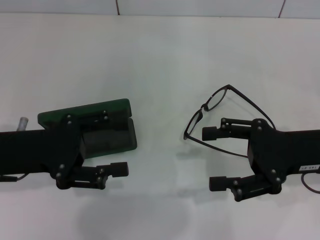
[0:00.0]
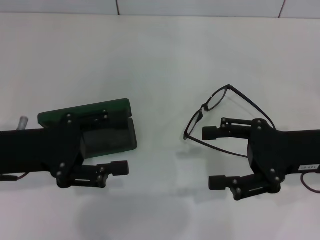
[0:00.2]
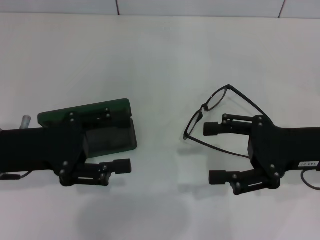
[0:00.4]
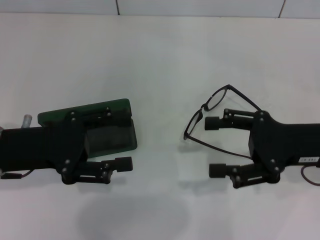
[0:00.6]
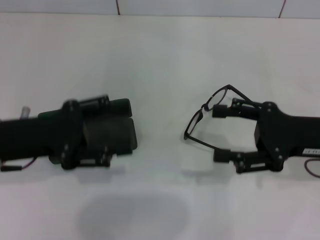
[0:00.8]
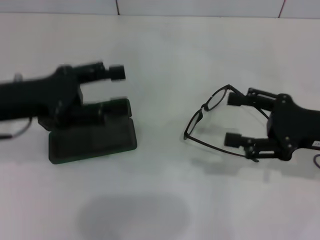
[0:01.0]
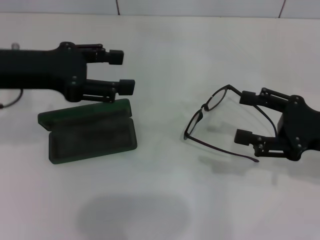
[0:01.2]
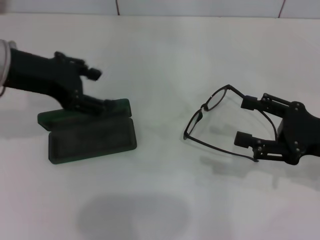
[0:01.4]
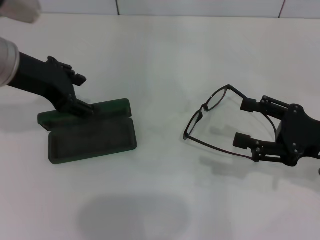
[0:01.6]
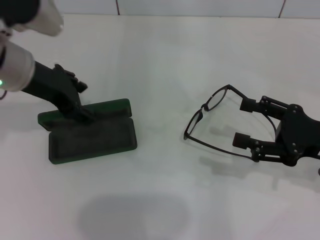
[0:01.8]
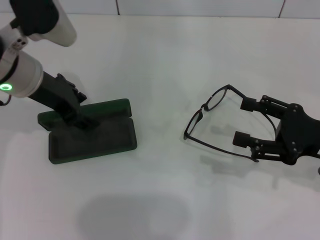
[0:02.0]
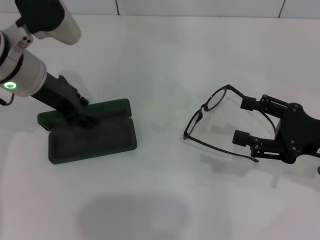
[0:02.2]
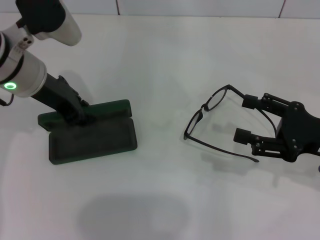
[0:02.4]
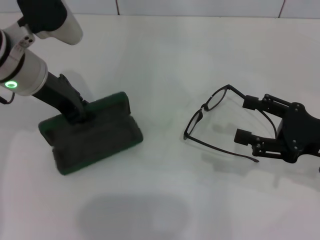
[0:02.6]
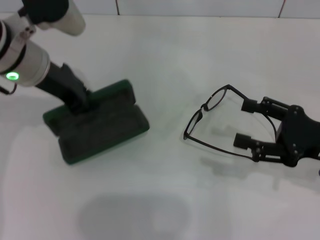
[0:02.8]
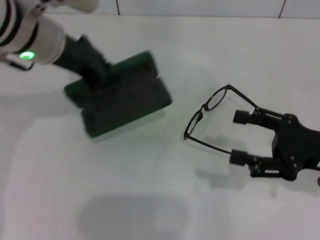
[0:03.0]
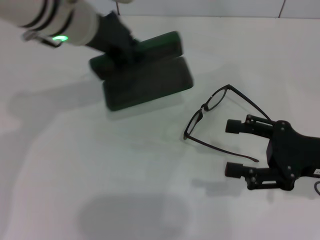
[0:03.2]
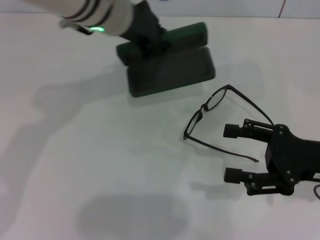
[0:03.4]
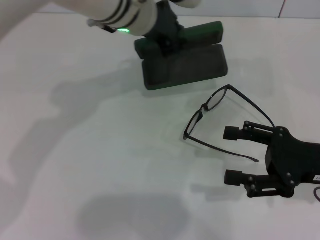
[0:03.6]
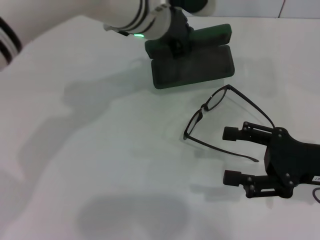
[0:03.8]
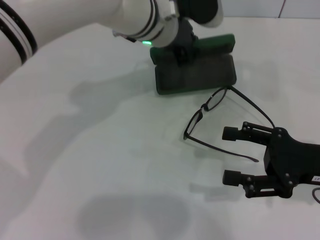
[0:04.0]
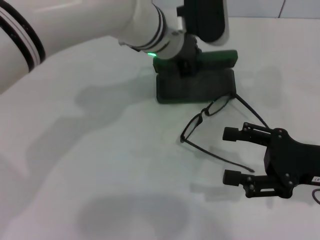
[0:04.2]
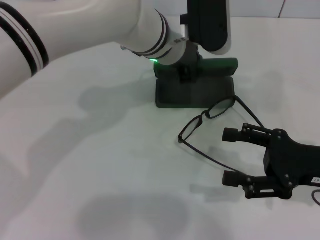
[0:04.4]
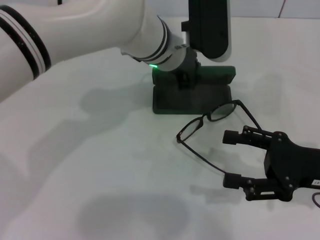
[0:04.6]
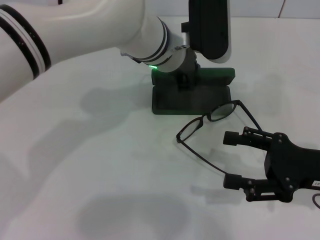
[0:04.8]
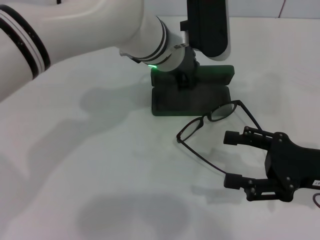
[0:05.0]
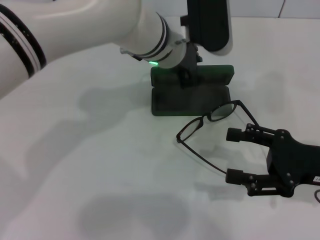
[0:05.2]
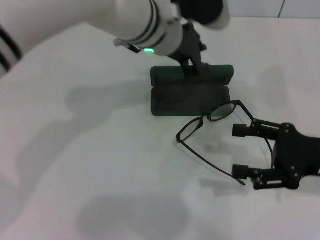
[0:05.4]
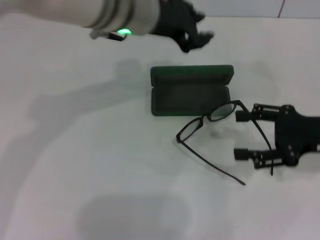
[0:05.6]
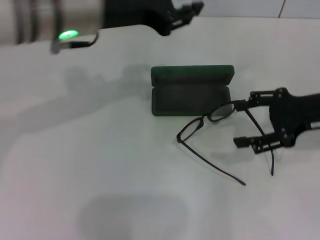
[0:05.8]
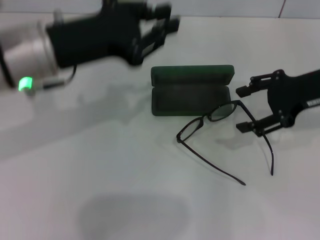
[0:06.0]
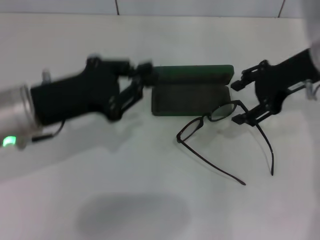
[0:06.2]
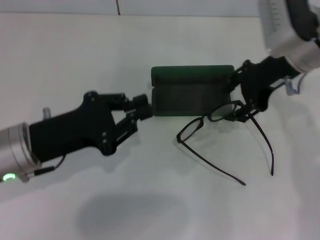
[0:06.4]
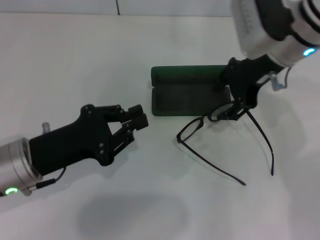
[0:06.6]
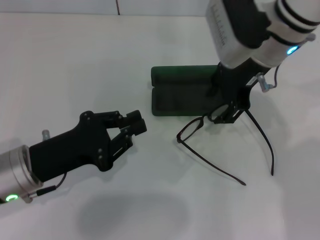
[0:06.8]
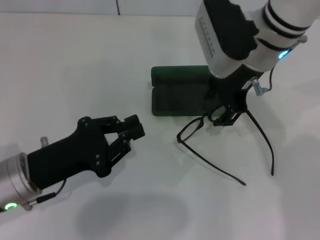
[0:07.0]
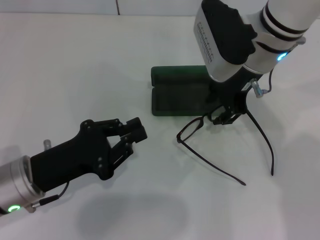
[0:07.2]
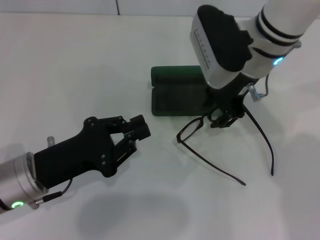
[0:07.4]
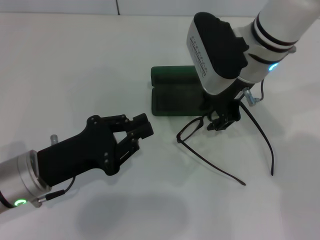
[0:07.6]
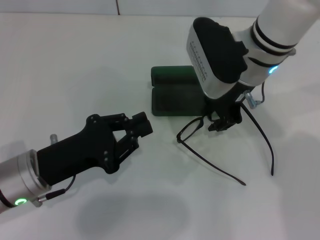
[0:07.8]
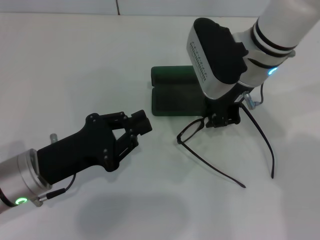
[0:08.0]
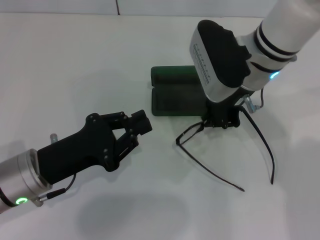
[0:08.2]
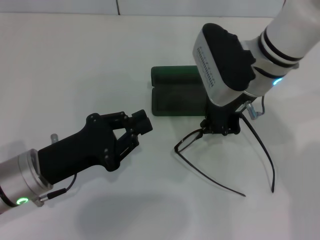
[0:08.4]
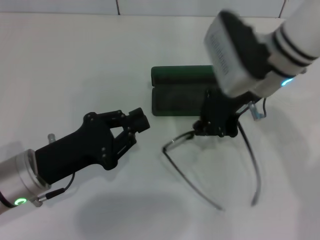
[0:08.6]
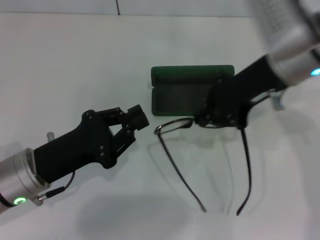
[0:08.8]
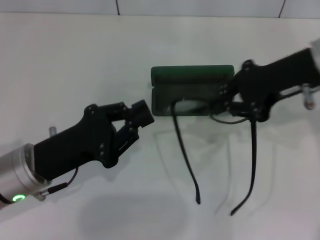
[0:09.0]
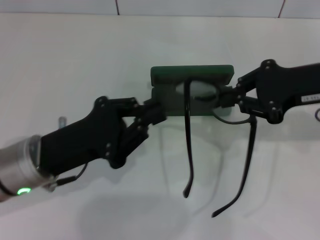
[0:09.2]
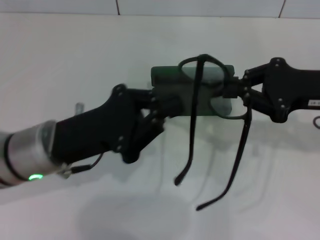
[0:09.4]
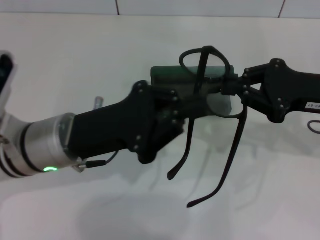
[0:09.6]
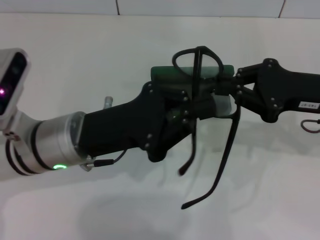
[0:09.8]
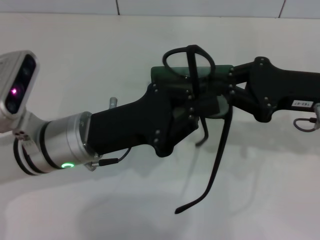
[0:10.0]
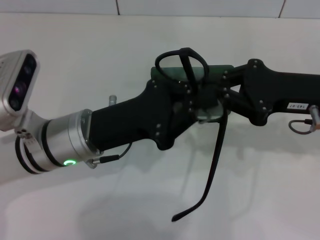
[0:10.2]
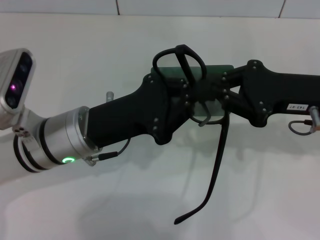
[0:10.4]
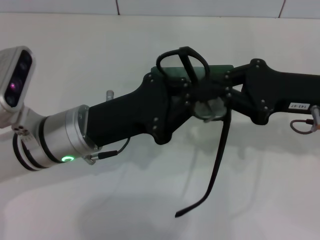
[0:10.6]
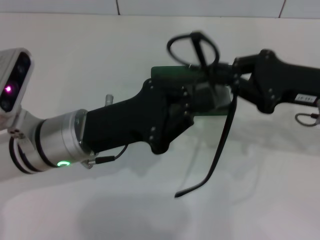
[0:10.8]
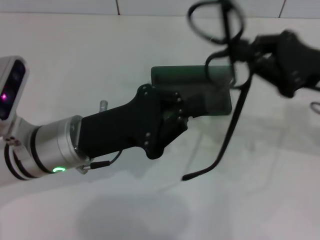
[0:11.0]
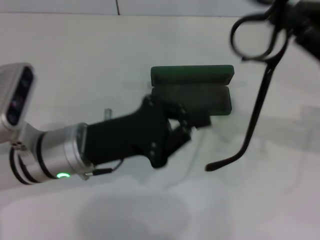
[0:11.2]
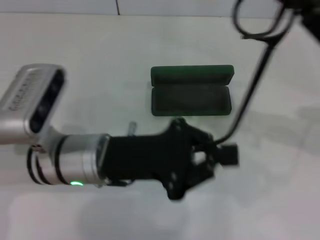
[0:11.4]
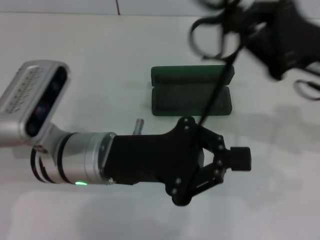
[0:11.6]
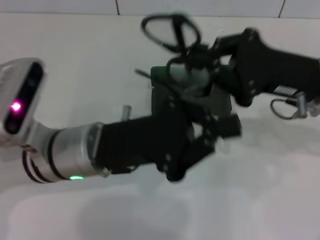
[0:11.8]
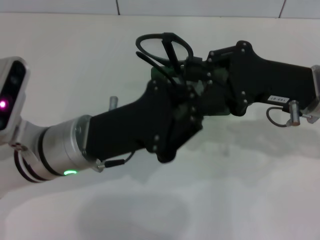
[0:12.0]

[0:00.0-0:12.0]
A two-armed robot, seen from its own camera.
Step, 0:00.0 to 0:02.4: Grab the glasses case with your left hand.
Step, 0:02.8 to 0:05.2: Place the glasses case in the center of the table with your left hand.
Step, 0:05.4 to 0:08.0: Grab the eyeglass frame with your right hand.
0:00.0 to 0:01.6: The left gripper travels upward and forward by approximately 15 cm.
0:01.6 to 0:03.0: The left gripper goes about 5 cm to the right, and closes up.
0:03.0 to 0:04.4: The left gripper heads to the right and downward, covering roughly 15 cm.
0:04.4 to 0:06.0: The left gripper shifts some 20 cm to the left and backward. Meanwhile the right gripper moves forward and upward, some 15 cm.
0:06.0 to 0:07.6: The left gripper moves downward and backward, roughly 15 cm; the right gripper moves to the left, approximately 15 cm, and closes its fingers.
0:07.6 to 0:09.0: The right gripper goes roughly 10 cm to the right, and closes up.
0:09.0 to 0:10.4: The right gripper goes approximately 5 cm downward, while the left gripper goes approximately 5 cm to the right.

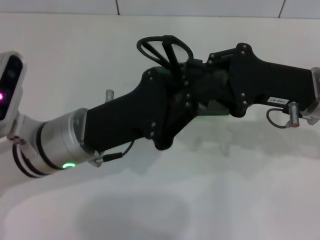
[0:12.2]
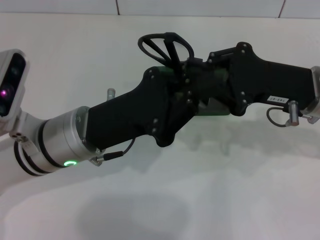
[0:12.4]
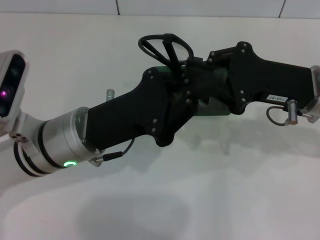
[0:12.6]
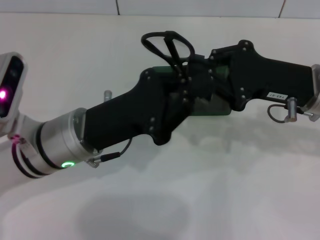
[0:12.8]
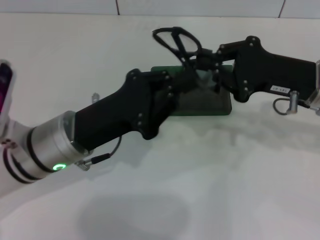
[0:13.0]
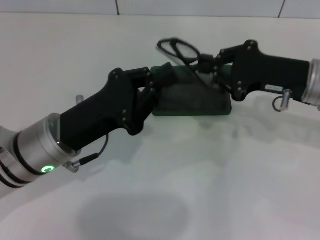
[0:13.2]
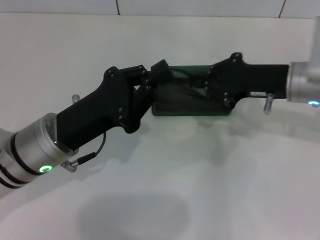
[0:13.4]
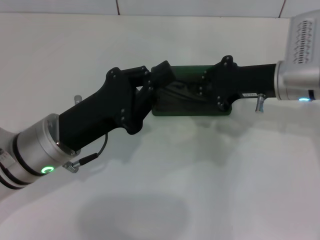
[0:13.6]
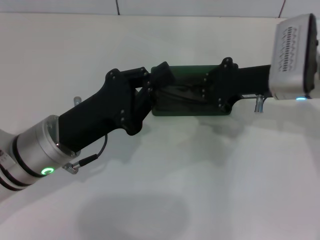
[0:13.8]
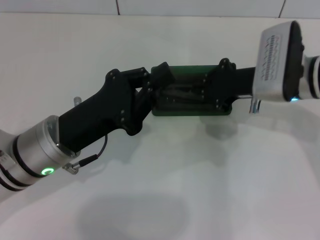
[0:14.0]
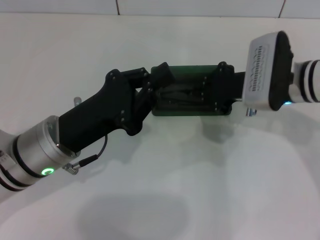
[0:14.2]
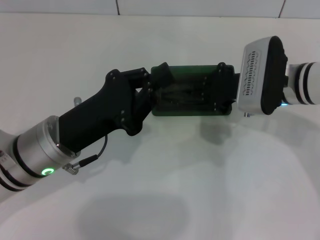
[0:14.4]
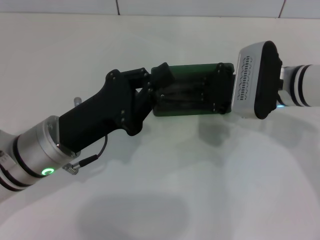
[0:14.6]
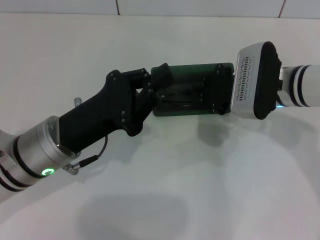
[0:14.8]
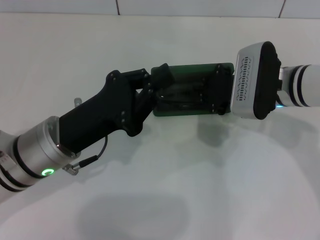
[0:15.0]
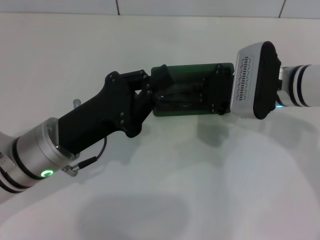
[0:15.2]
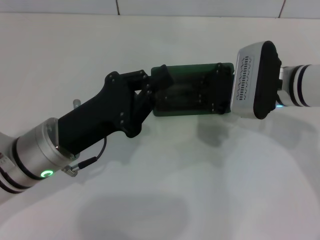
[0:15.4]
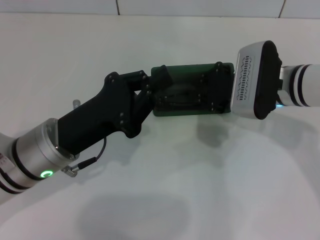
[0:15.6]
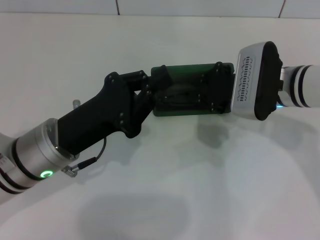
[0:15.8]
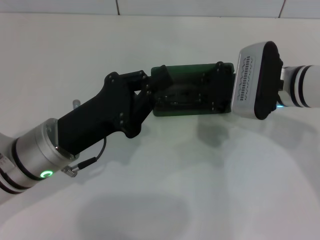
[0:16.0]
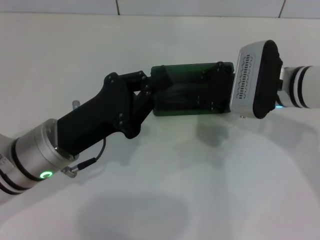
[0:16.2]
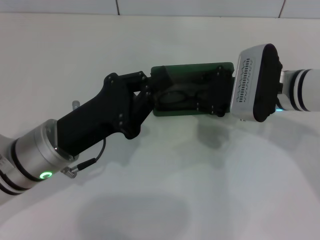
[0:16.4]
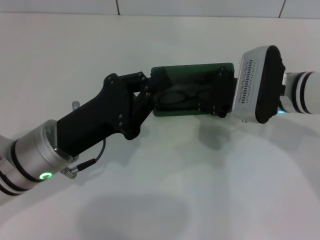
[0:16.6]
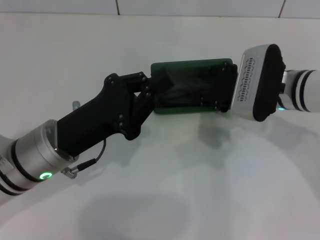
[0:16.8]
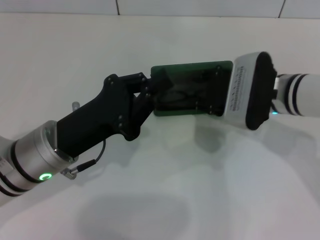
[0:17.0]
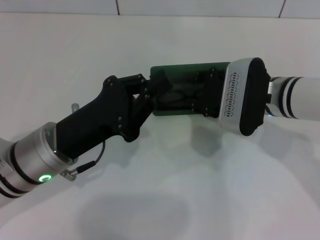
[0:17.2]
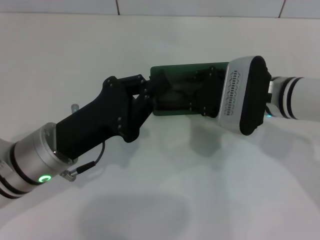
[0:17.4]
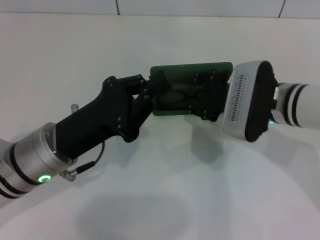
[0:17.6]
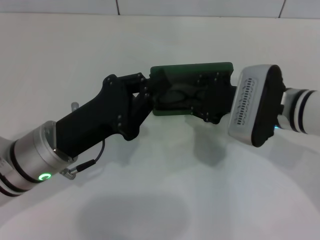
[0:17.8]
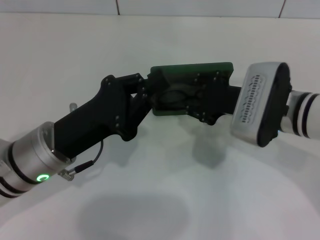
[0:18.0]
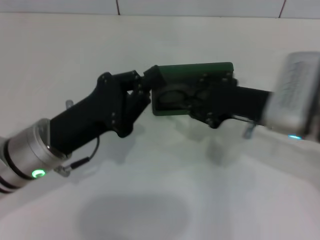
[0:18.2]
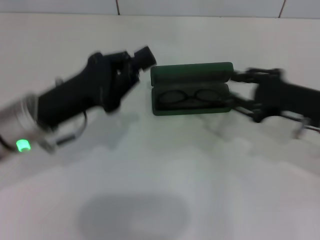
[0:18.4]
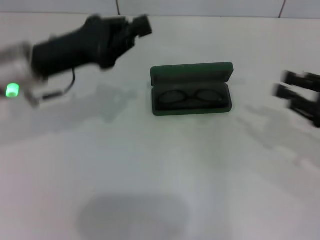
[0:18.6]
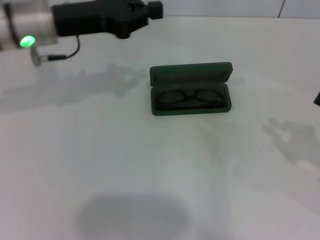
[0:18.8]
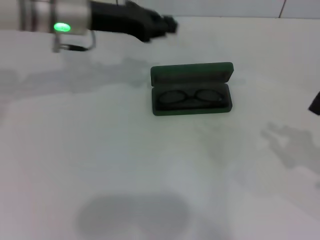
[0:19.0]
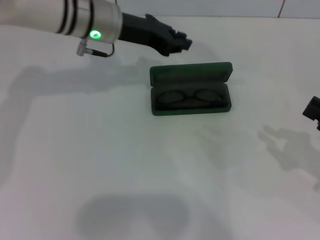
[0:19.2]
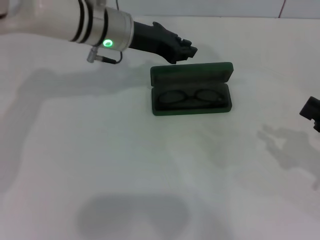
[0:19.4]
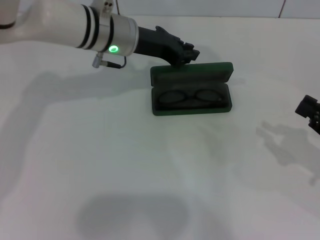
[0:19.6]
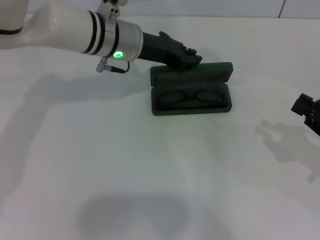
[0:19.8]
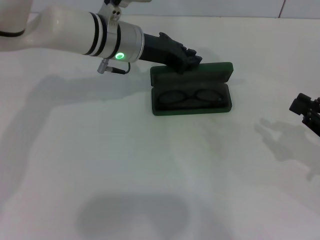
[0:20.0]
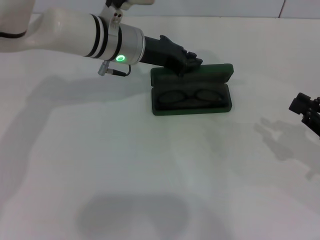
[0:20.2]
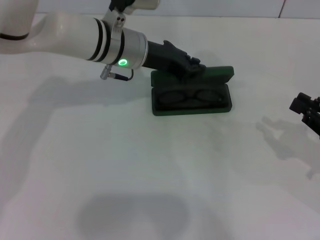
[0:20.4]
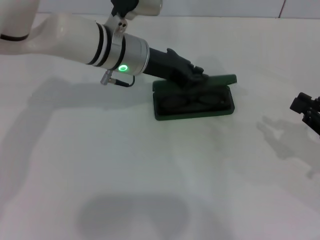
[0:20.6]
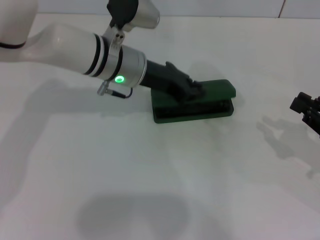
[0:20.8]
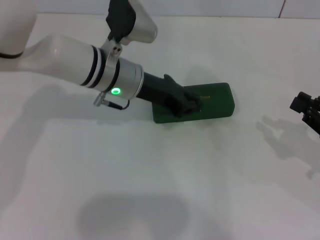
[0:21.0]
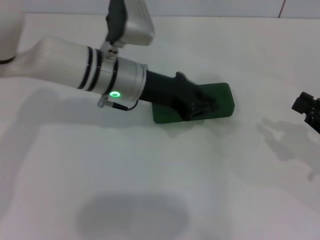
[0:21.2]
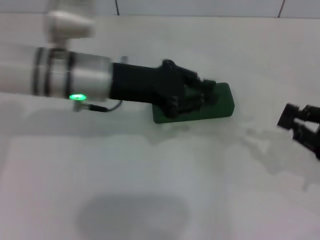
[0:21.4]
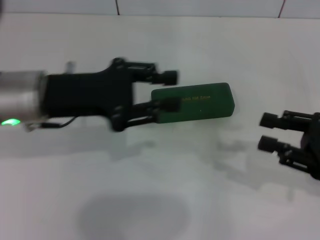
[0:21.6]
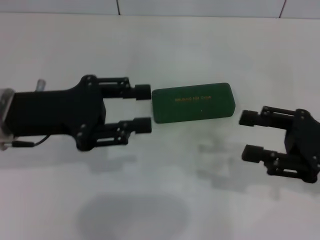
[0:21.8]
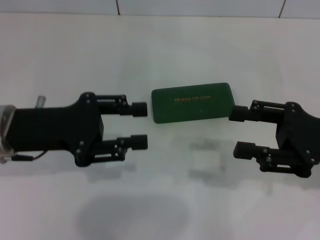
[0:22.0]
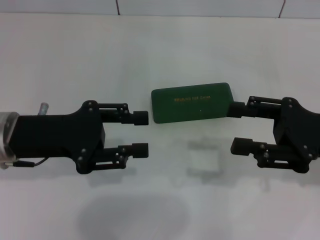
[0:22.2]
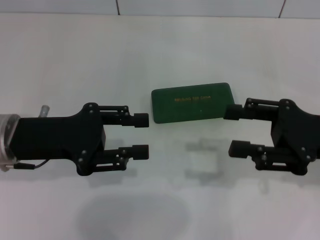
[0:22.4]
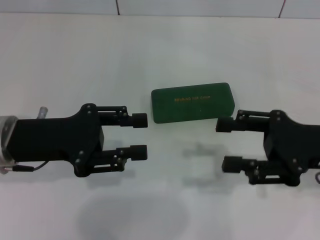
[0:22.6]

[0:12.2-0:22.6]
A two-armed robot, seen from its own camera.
Step, 0:13.0 to 0:17.4: Put the glasses into the case with your right hand.
Step, 0:17.8 to 0:21.2: Close the glasses case with your left hand.
0:12.2 to 0:13.6: The right gripper moves forward, approximately 5 cm.
0:15.2 to 0:16.6: The right gripper opens.
0:16.6 to 0:18.2: The right gripper heads backward, covering roughly 5 cm.
0:18.2 to 0:19.6: The left gripper heads forward, covering approximately 20 cm. The right gripper shifts approximately 15 cm to the right.
0:19.6 to 0:21.2: The left gripper is displaced backward by roughly 5 cm.
0:21.2 to 0:22.6: The right gripper goes some 10 cm to the left and upward, and opens up. The left gripper travels to the left and backward by approximately 20 cm, and opens.
